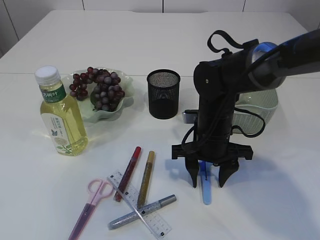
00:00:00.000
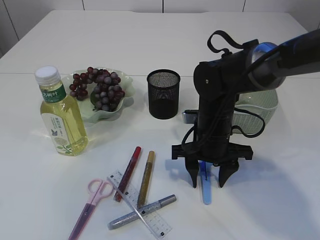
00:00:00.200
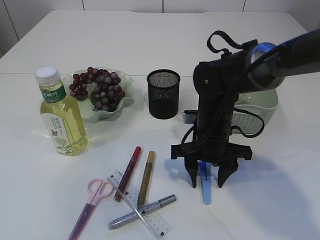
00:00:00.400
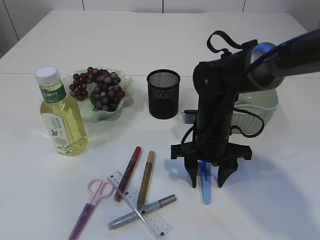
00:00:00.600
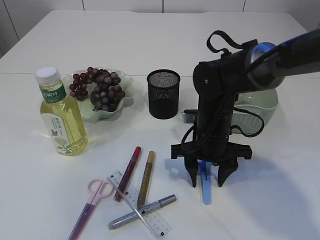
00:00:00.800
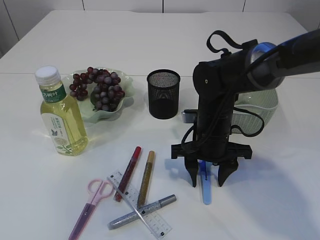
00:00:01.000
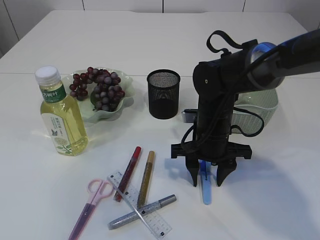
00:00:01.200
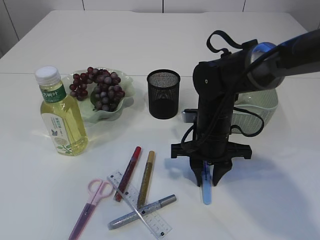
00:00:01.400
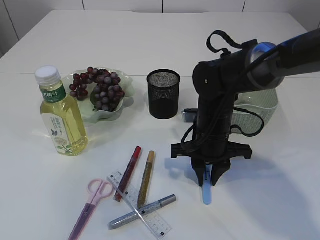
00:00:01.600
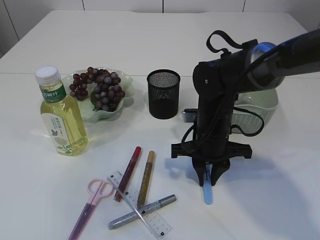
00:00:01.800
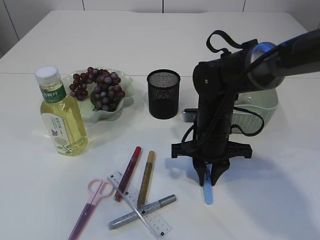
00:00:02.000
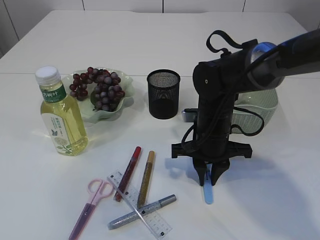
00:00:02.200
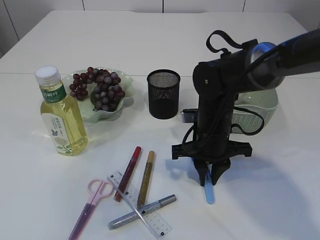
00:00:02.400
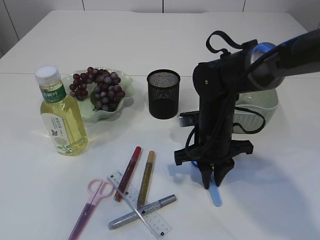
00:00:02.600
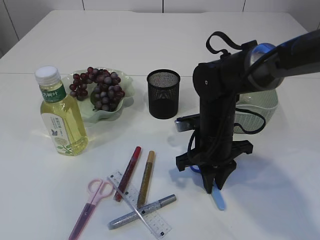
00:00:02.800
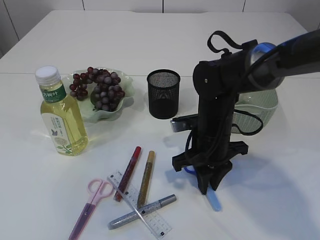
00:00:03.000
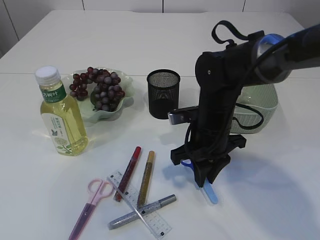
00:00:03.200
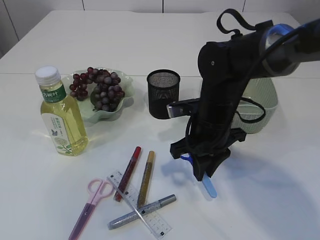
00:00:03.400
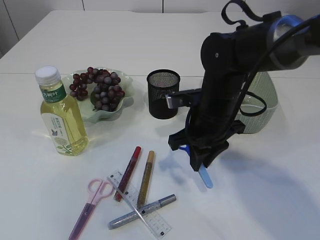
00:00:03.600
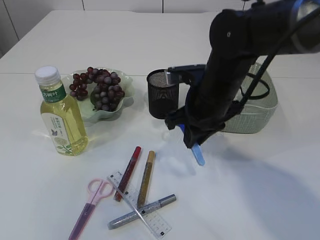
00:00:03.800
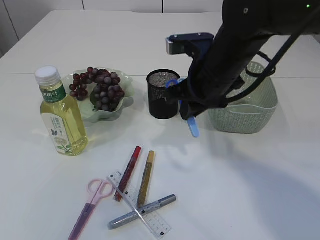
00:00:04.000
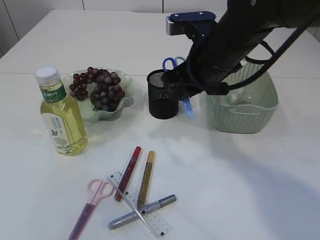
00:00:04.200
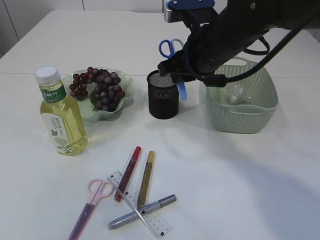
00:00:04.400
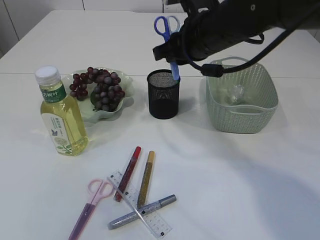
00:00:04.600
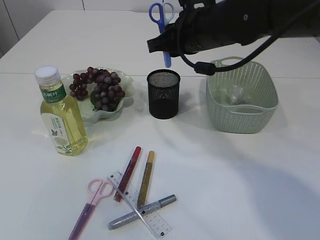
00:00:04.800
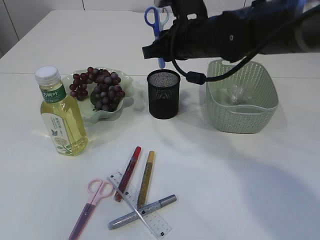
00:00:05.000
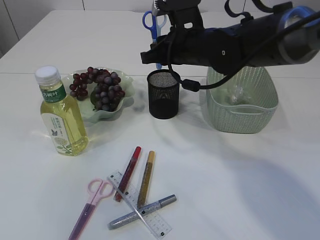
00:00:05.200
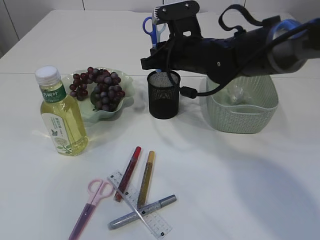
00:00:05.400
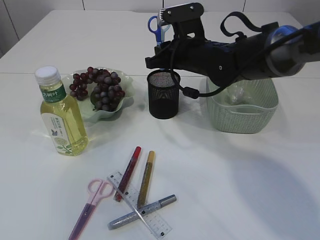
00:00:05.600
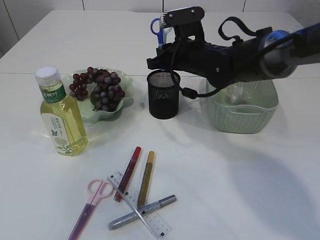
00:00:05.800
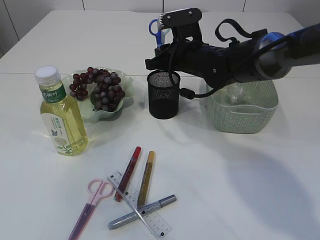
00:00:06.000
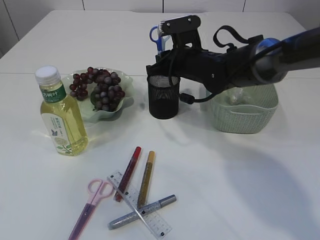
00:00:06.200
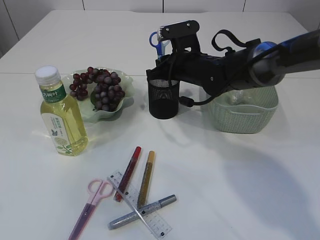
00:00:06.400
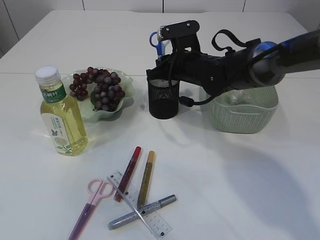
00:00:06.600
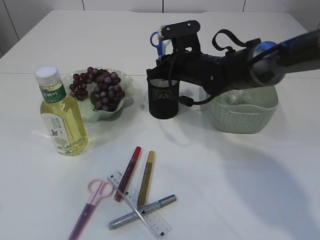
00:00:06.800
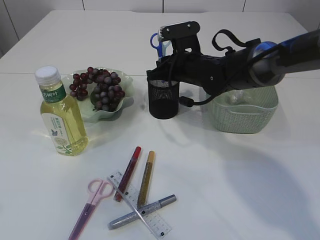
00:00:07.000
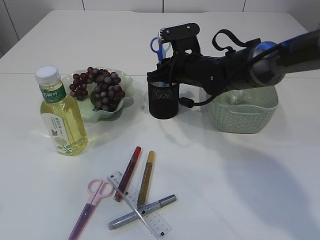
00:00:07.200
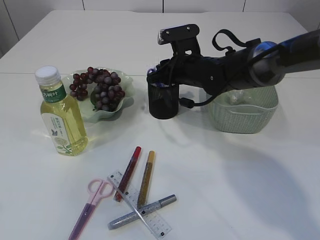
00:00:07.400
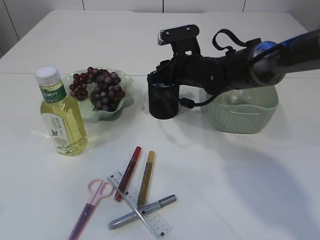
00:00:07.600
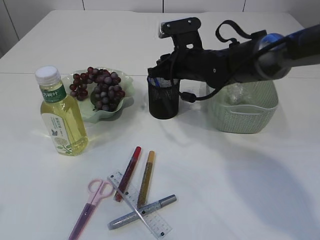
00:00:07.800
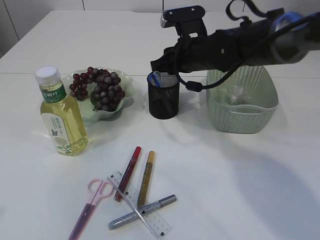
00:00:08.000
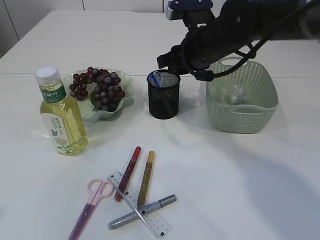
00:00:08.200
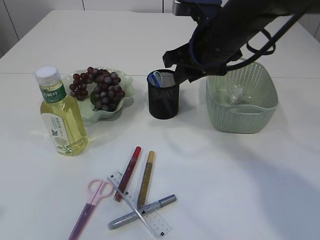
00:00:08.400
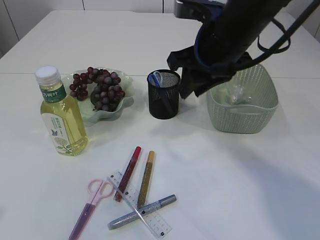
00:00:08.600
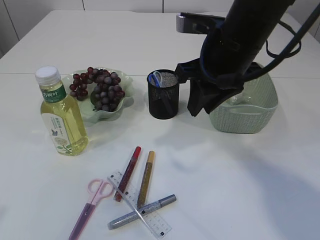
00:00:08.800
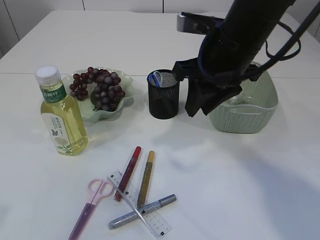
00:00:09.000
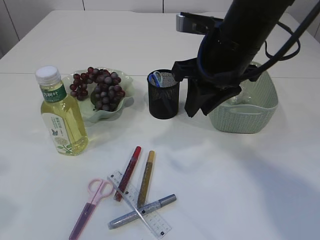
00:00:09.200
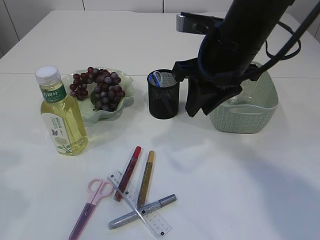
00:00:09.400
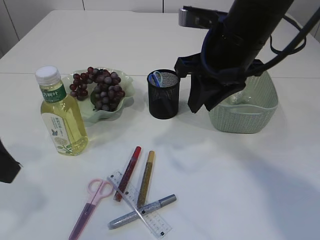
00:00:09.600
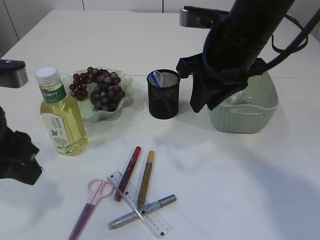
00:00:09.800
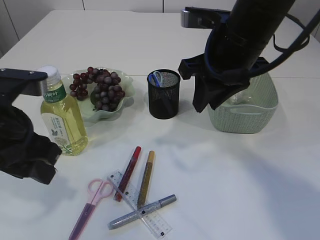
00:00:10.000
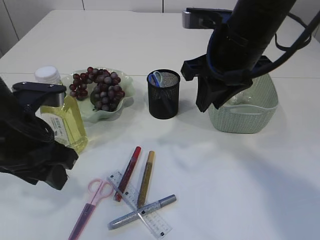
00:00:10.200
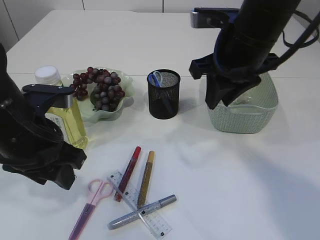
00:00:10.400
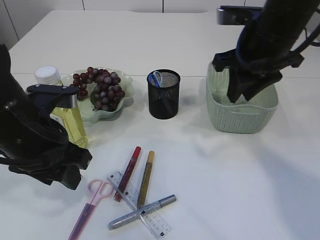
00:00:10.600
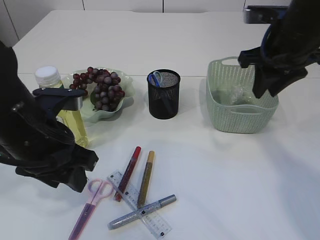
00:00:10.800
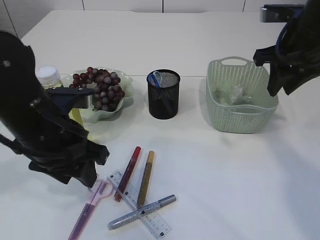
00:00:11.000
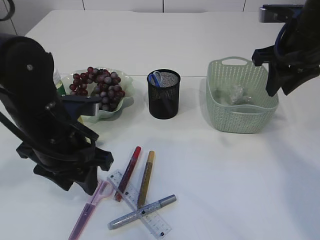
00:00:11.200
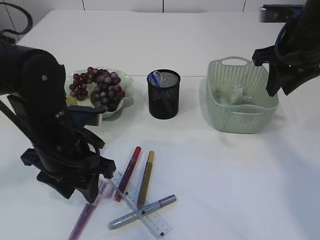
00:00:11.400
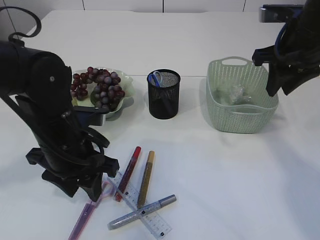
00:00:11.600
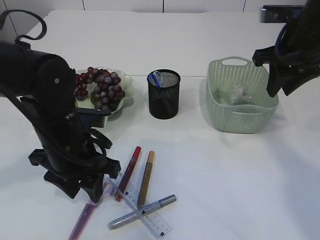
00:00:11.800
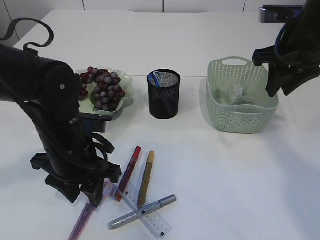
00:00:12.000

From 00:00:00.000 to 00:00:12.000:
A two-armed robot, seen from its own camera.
Step, from 00:00:00.000 to 00:00:03.600: pick up the blue scissors.
Step, from 00:00:03.800 to 00:00:08.400: Place the blue knife into the pen holder.
From 00:00:00.000 to 00:00:01.600: The right gripper closes its fingers.
From 00:00:03.000 to 00:00:04.400: The right gripper shifts about 15 cm upward.
From 00:00:04.400 to 00:00:06.000: The right gripper is displaced forward and downward by roughly 10 cm.
From 00:00:06.000 to 00:00:07.600: The grippers move only a little.
From 00:00:07.600 to 00:00:09.000: The right gripper goes approximately 15 cm backward and upward.
From 00:00:09.000 to 00:00:10.400: The left gripper moves downward, forward and to the right, about 20 cm.
From 00:00:10.400 to 00:00:12.000: The left gripper goes some 5 cm downward. The right gripper travels to the right by approximately 10 cm.

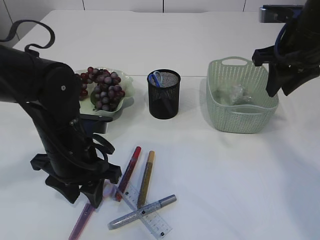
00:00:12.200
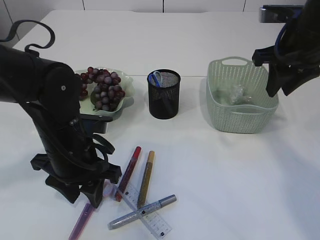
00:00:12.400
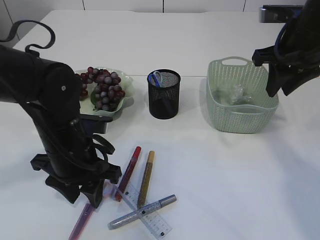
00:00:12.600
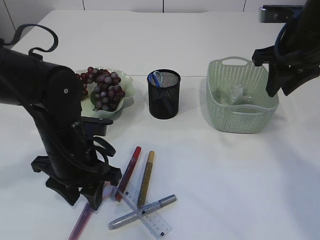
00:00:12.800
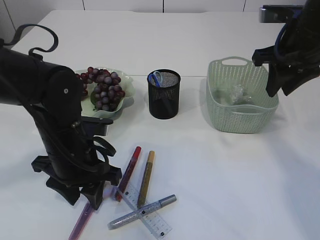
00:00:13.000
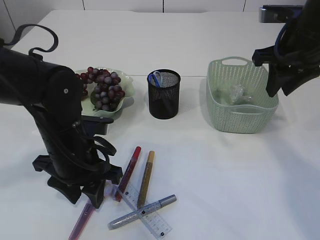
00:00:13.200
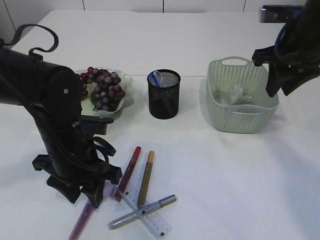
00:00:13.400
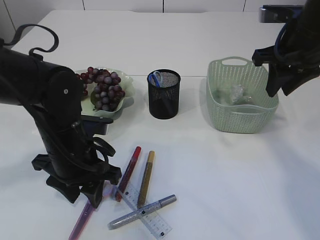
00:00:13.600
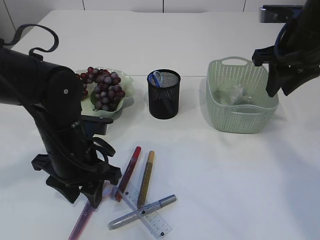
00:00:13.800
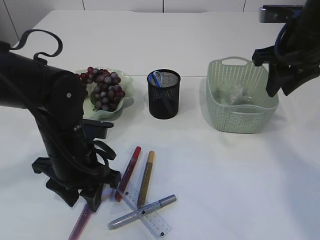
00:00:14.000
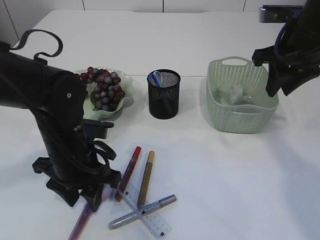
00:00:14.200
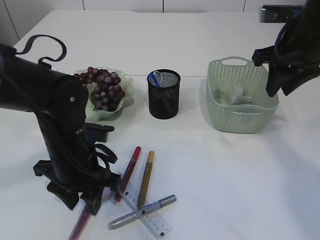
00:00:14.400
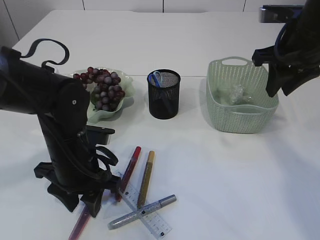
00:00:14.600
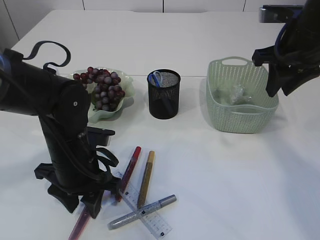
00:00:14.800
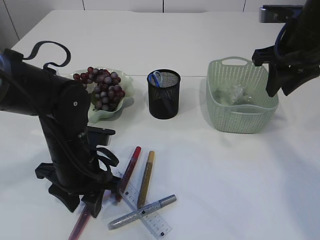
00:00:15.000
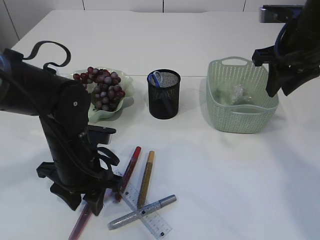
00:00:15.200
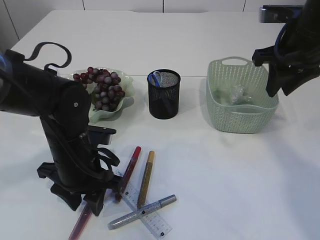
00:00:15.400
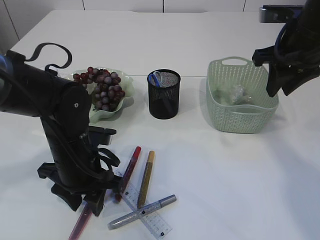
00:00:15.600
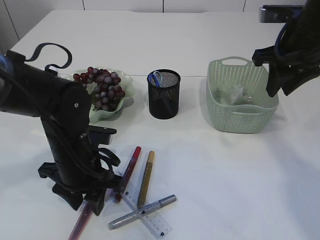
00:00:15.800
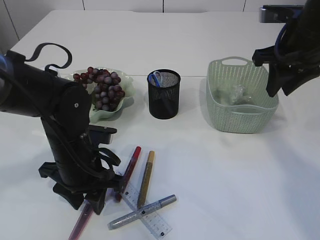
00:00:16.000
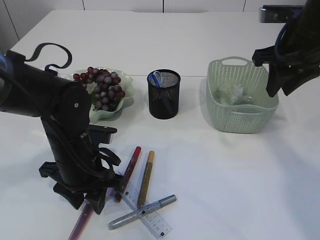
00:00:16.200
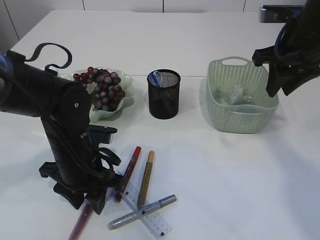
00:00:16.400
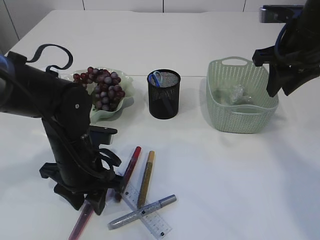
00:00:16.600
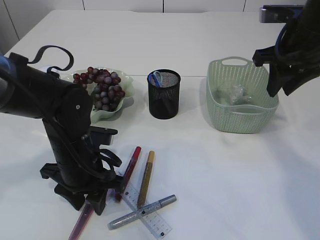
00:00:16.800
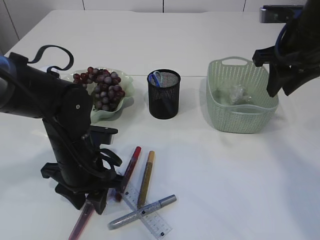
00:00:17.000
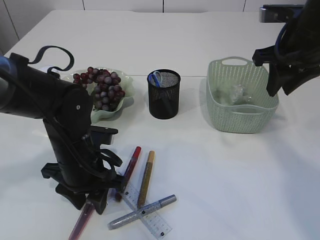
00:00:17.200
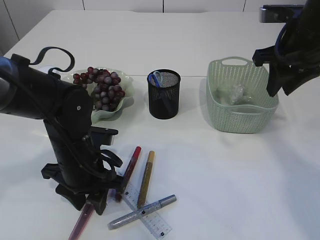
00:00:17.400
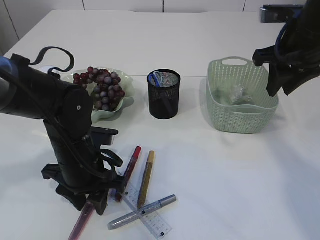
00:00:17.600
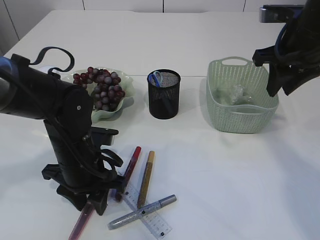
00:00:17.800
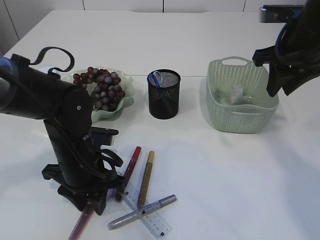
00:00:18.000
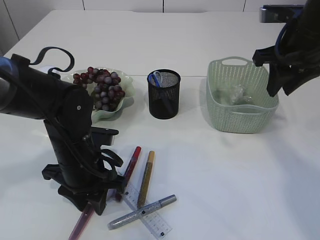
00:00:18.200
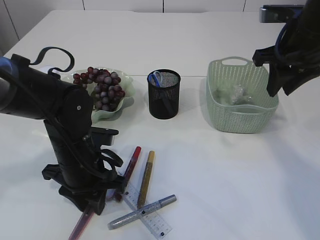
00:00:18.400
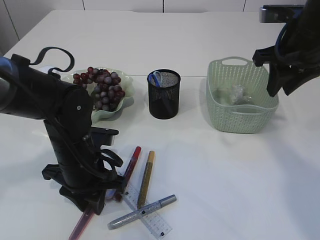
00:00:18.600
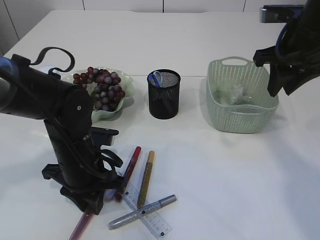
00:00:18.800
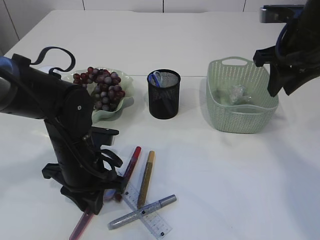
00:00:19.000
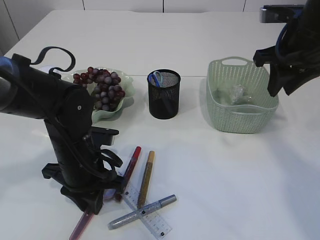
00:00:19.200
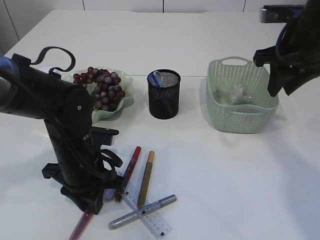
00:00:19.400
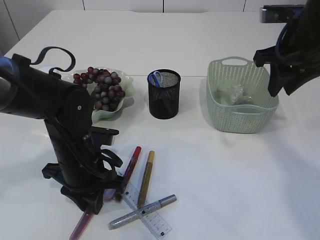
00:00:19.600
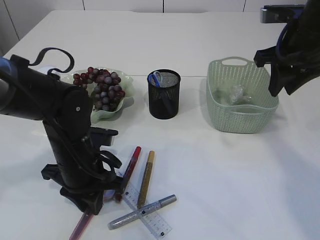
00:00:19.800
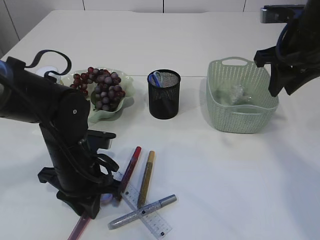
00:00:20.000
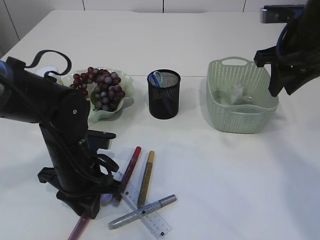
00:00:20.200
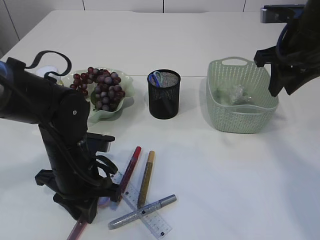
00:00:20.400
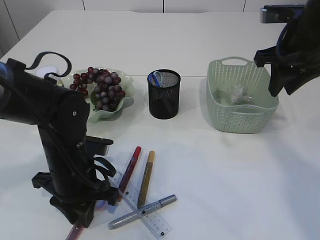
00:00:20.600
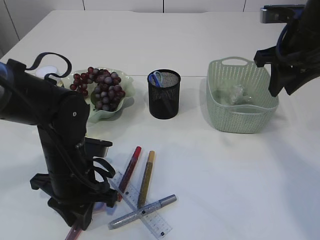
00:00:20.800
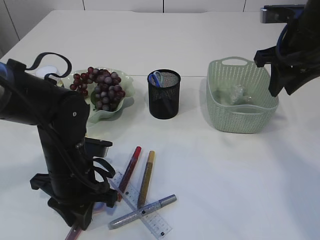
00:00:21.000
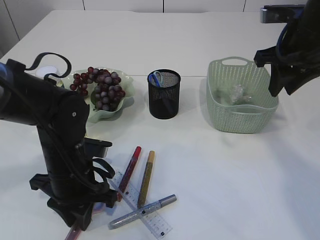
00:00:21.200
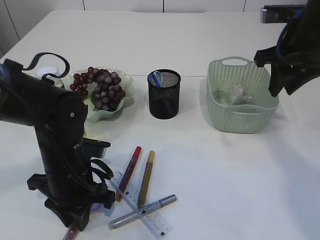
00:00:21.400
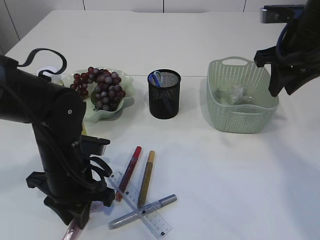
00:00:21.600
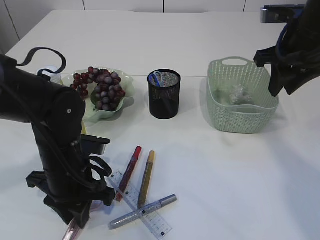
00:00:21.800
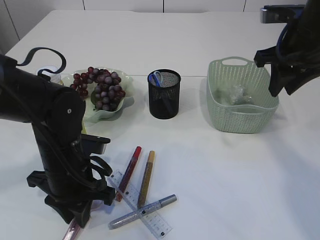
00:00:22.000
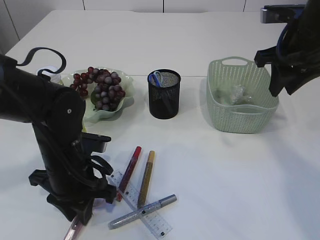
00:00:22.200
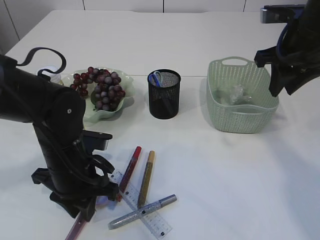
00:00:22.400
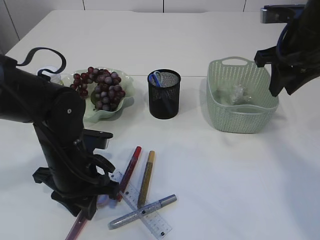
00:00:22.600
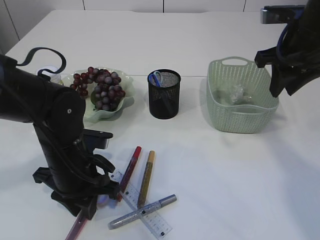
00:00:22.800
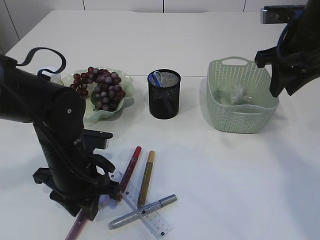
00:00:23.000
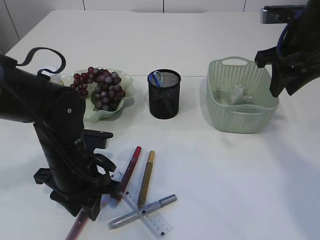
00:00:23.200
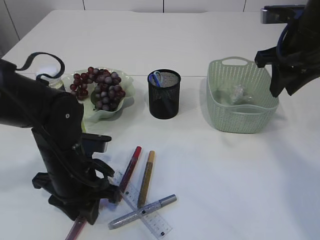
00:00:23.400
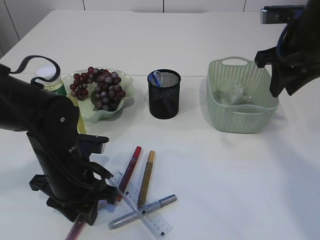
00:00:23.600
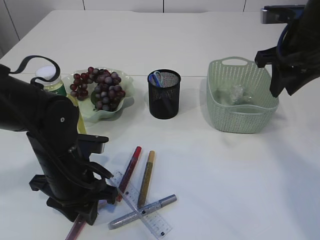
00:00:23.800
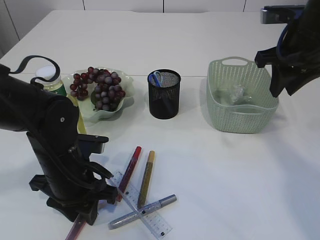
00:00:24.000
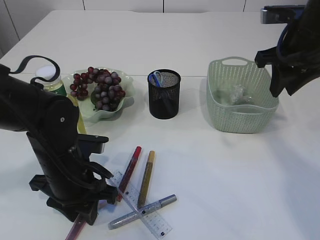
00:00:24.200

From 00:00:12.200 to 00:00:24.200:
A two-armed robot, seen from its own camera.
From 00:00:12.200 to 00:00:13.800: The two grippers keep their place.
From 00:00:13.800 to 00:00:15.200: The grippers make only small movements.
From 00:00:15.200 to 00:00:19.800: Both grippers stay about where they are.
From 00:00:19.800 to 00:00:22.600: The grippers make only small movements.
From 00:00:22.600 to 00:00:24.200: Neither gripper changes place.
